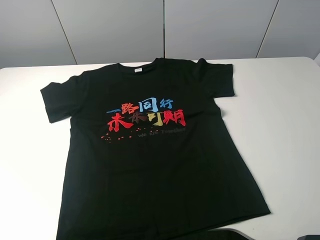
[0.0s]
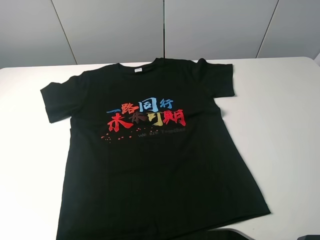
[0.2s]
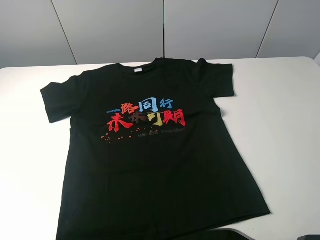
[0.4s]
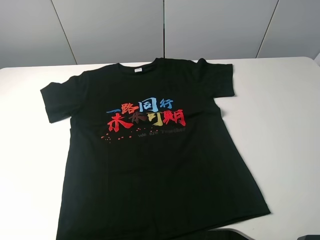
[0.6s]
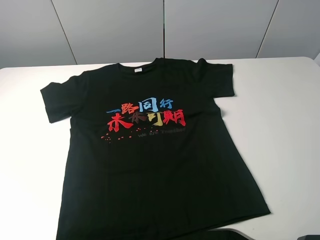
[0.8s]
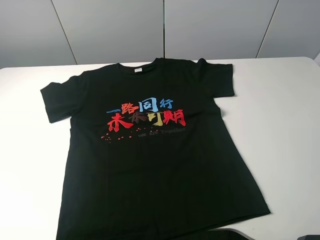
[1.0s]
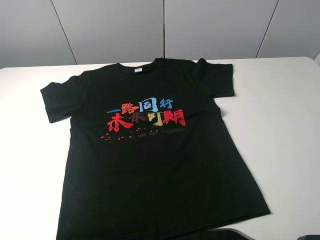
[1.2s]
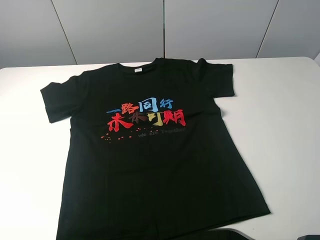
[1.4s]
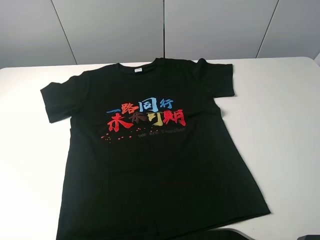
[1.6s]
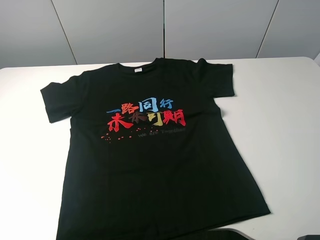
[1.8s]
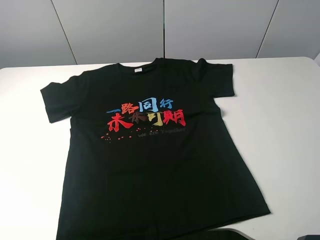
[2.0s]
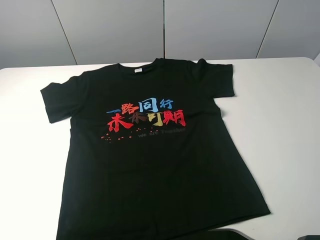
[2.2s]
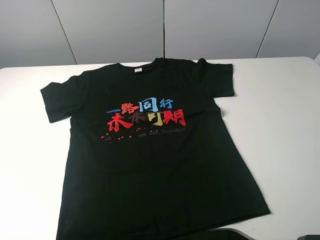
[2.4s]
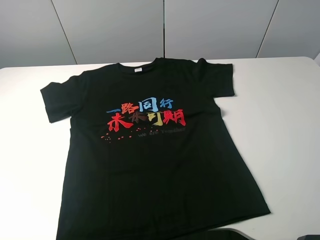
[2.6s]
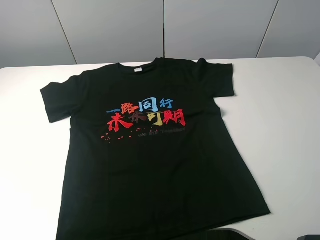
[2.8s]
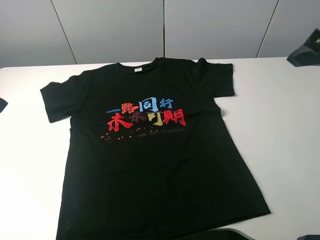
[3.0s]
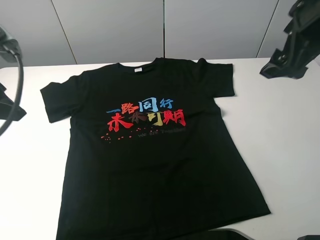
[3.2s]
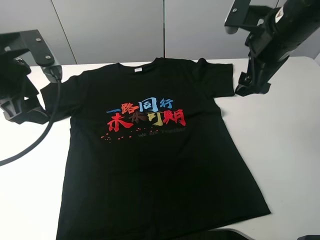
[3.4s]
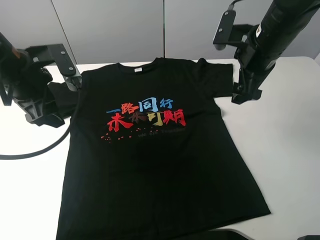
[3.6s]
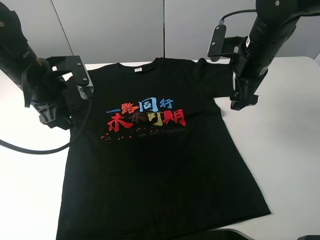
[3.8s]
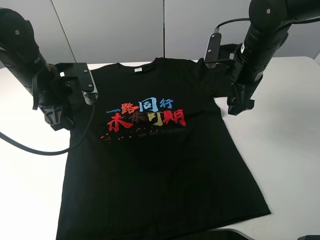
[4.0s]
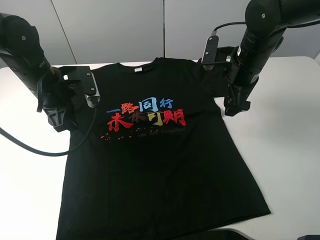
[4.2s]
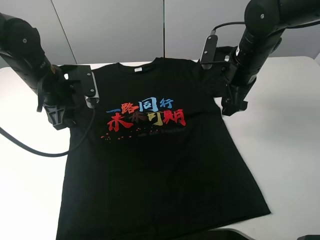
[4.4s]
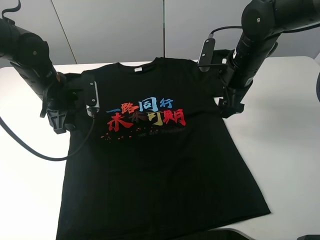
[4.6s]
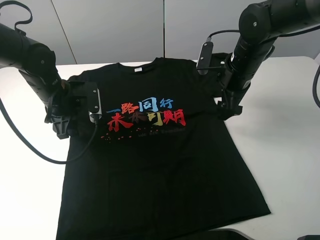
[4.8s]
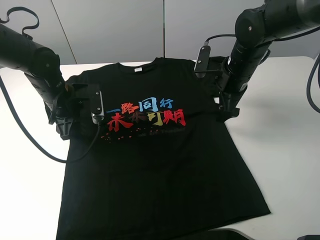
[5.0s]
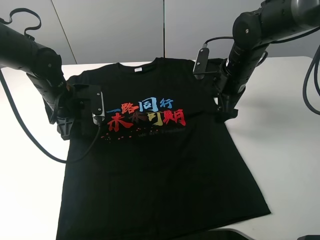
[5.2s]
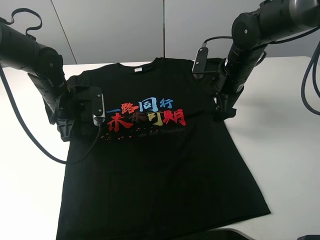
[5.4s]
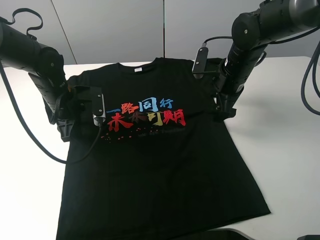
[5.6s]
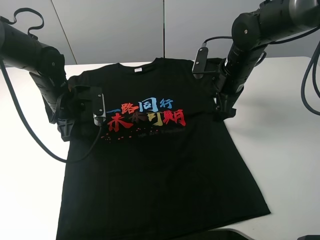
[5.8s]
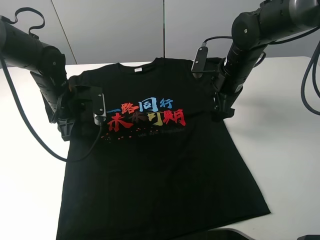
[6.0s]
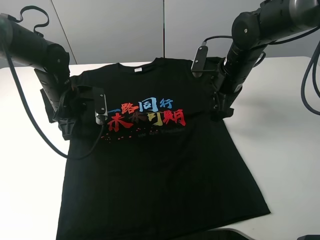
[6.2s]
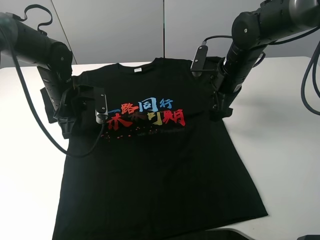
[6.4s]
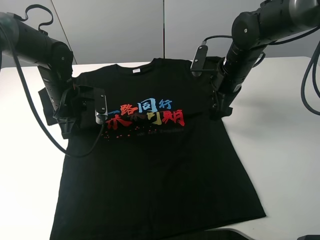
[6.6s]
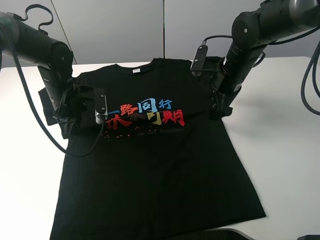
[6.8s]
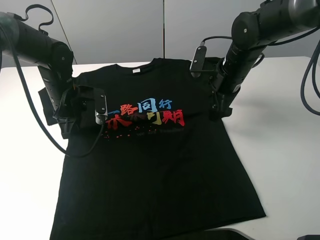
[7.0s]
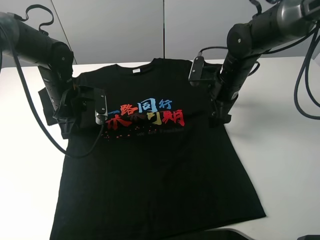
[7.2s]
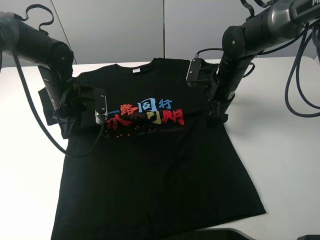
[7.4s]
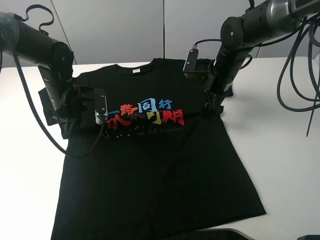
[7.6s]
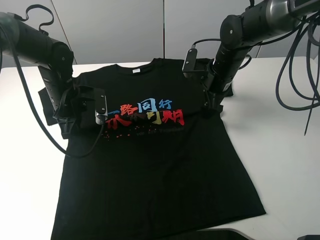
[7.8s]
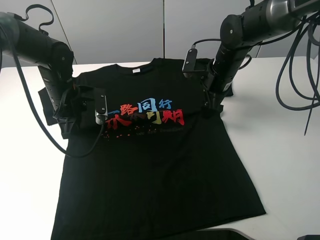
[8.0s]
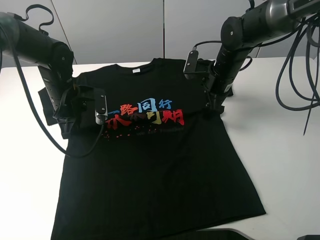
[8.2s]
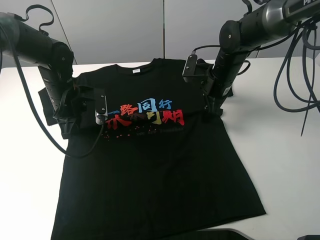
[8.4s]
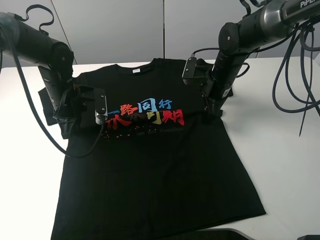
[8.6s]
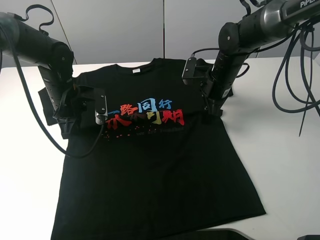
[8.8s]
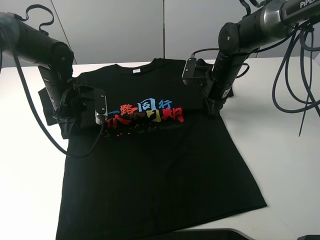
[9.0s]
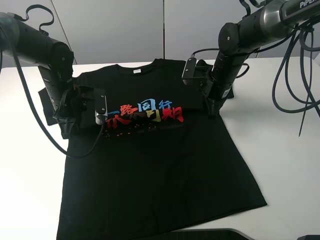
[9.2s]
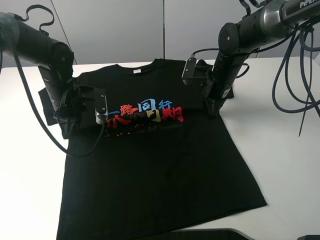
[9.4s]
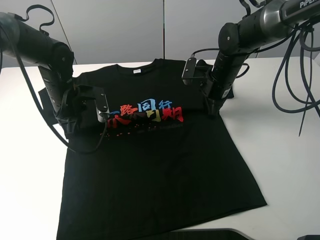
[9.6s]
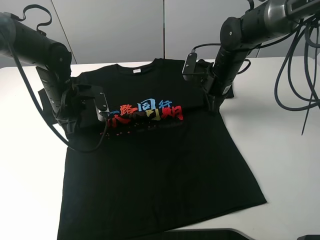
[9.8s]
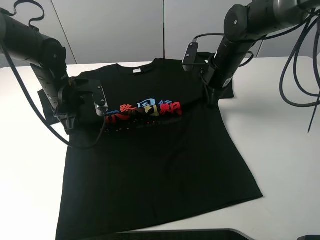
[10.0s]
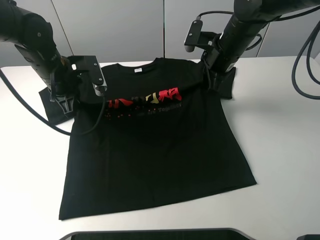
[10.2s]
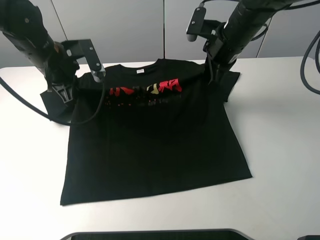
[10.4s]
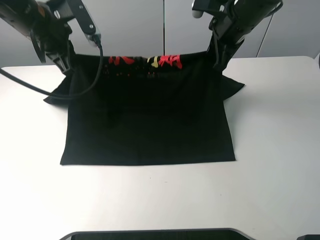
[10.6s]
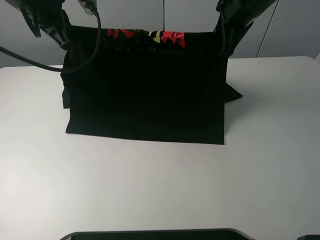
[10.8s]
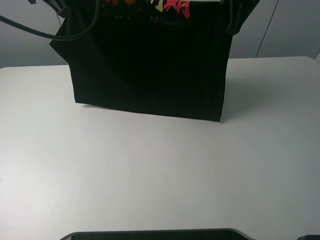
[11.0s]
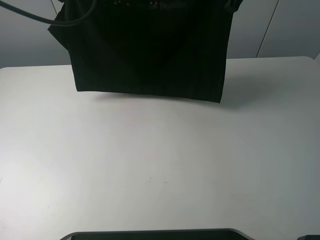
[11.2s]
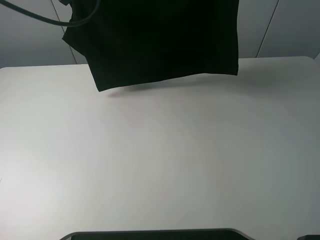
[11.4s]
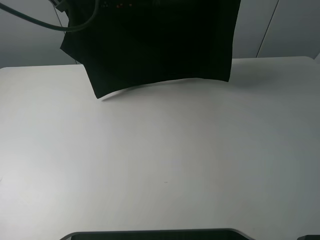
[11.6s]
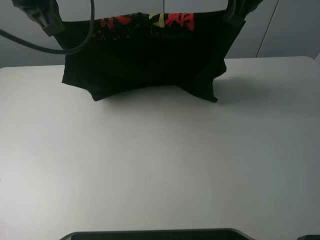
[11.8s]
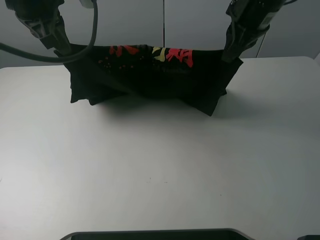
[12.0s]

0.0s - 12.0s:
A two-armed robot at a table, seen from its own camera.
Task of the whole recording: fold the clothes on the table.
Step, 0.0s - 9.2s: Lift the black T-shirt with the left gripper.
0.0s - 1.6s: Both grippers stay put.
1.6s - 3.0s: The right gripper travels forward by about 25 cm.
3.0s - 4.4s: The right gripper goes approximately 20 cm downward, forward and to the left. The left gripper is displaced downward, forward and to the right by approximately 20 cm.
4.4s - 6.0s: The left gripper moves downward, about 5 cm.
6.0s - 7.6s: The left gripper closes its fingers.
7.6s - 9.0s: The right gripper closes.
9.0s - 10.4s: Both grippers move upward, roughly 10 cm.
10.4s - 12.0s: The left gripper shifts some 15 cm upward. The right gripper travels upward by about 10 cm.

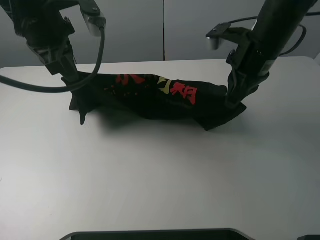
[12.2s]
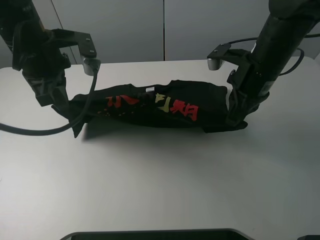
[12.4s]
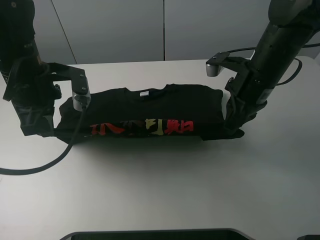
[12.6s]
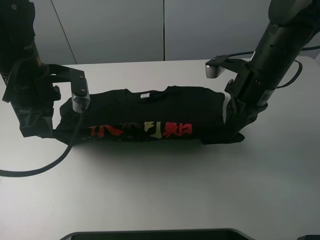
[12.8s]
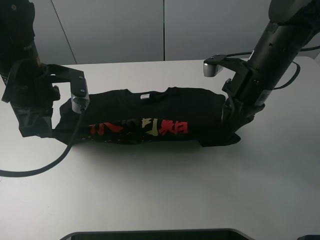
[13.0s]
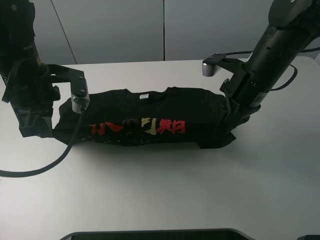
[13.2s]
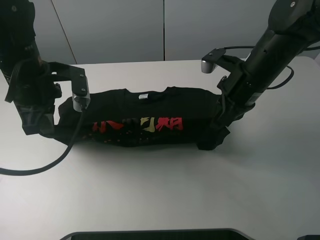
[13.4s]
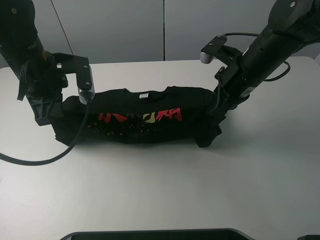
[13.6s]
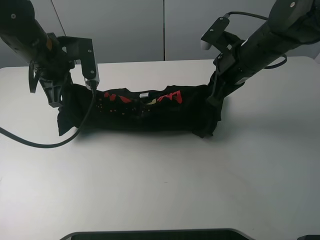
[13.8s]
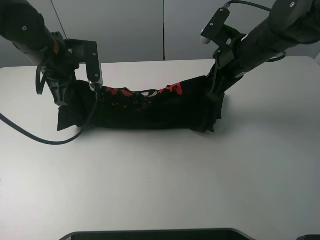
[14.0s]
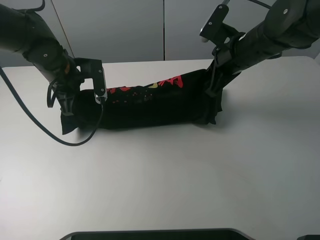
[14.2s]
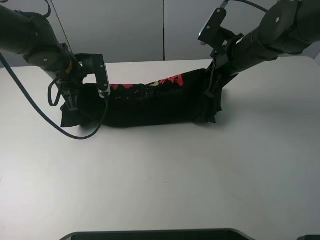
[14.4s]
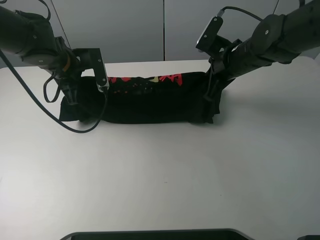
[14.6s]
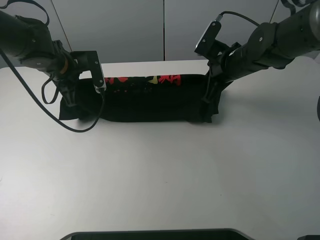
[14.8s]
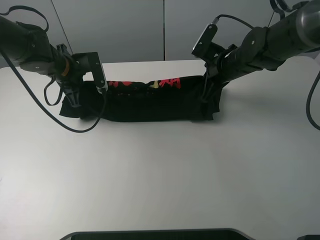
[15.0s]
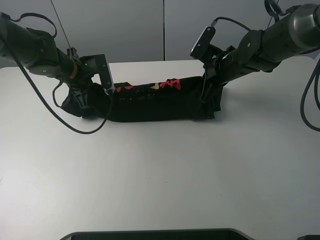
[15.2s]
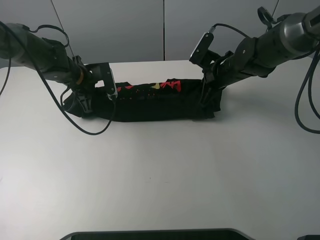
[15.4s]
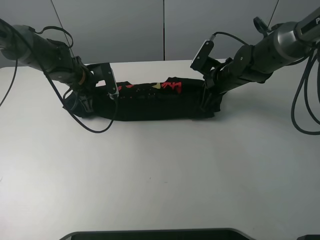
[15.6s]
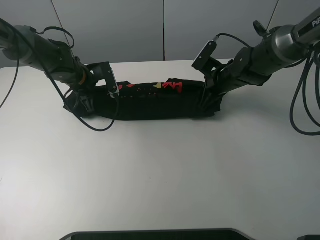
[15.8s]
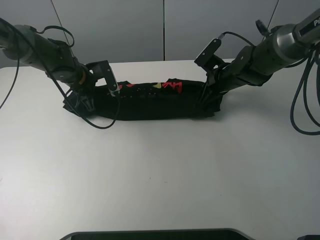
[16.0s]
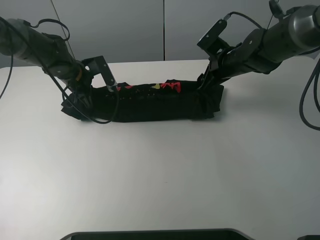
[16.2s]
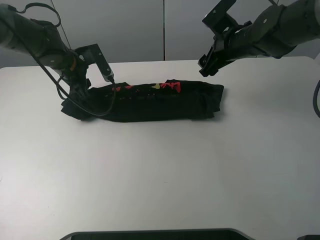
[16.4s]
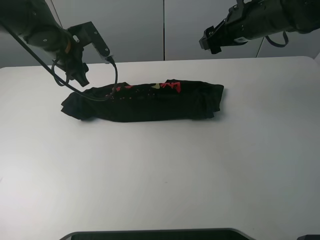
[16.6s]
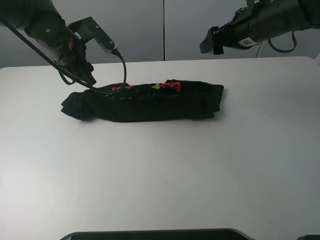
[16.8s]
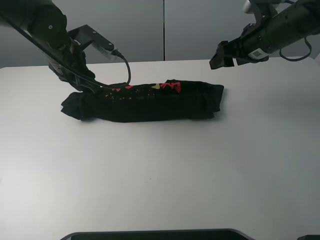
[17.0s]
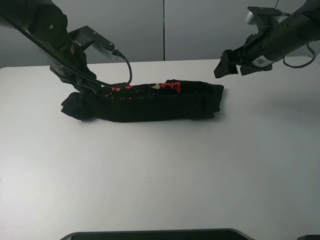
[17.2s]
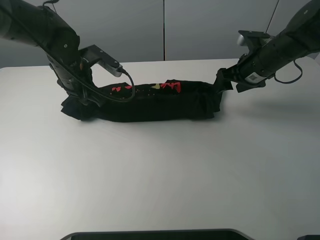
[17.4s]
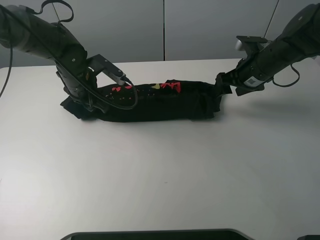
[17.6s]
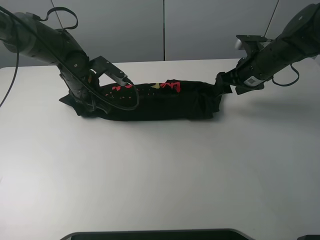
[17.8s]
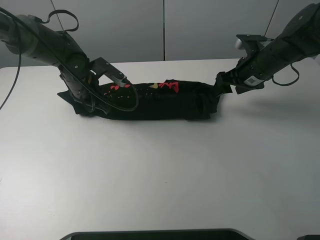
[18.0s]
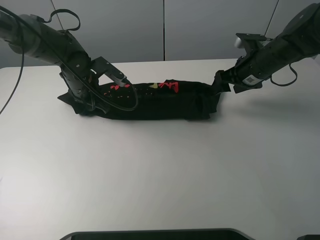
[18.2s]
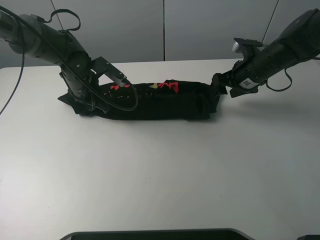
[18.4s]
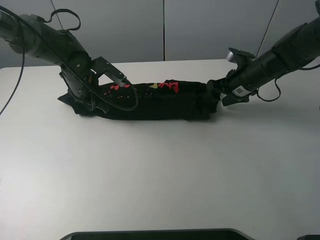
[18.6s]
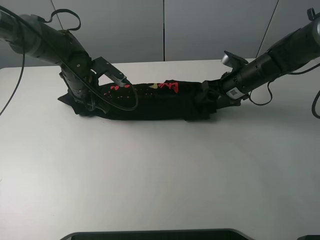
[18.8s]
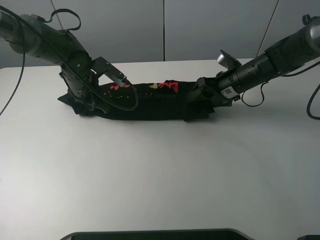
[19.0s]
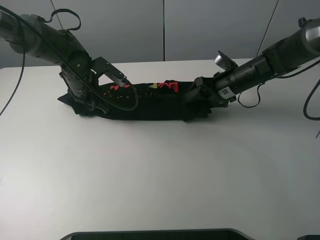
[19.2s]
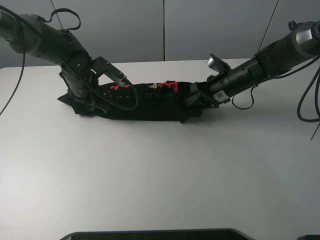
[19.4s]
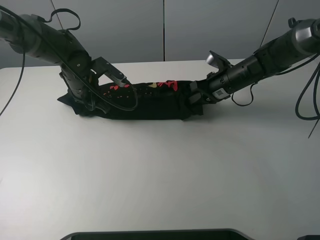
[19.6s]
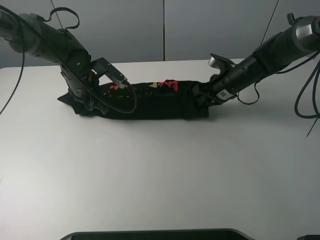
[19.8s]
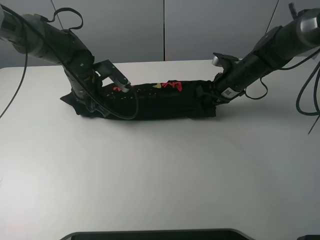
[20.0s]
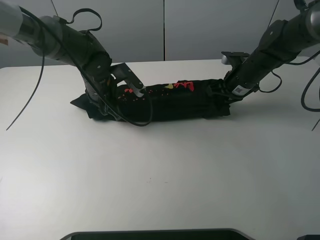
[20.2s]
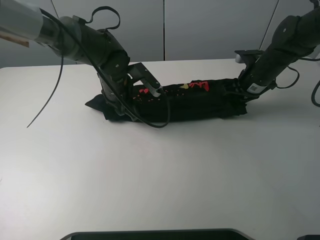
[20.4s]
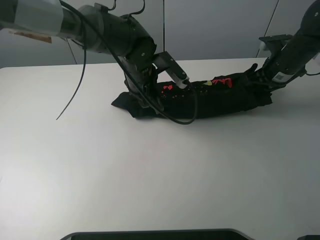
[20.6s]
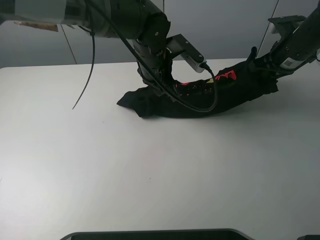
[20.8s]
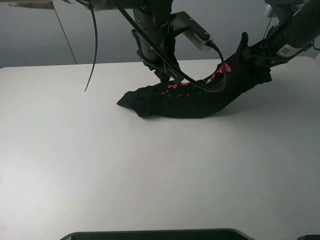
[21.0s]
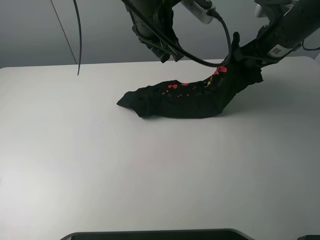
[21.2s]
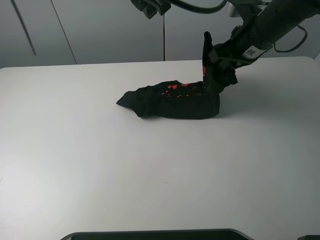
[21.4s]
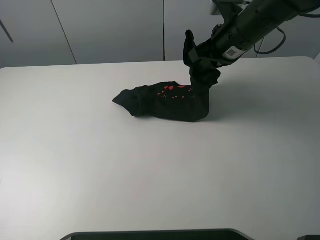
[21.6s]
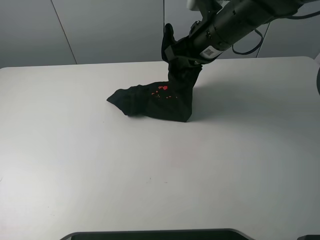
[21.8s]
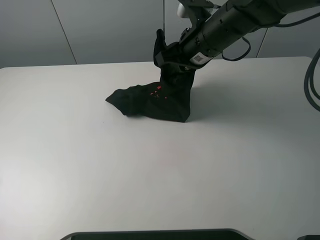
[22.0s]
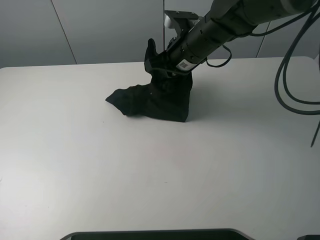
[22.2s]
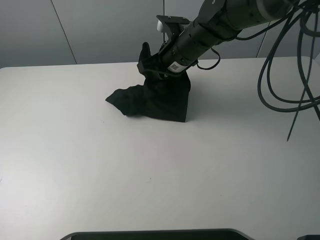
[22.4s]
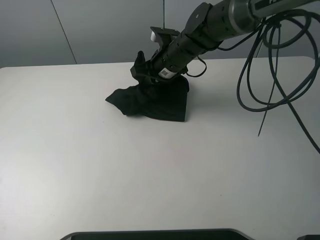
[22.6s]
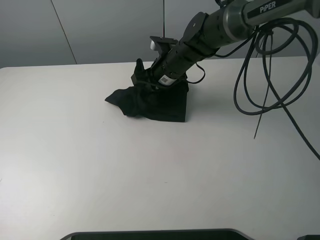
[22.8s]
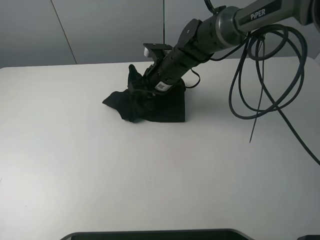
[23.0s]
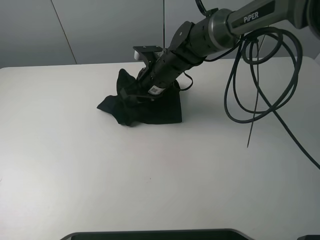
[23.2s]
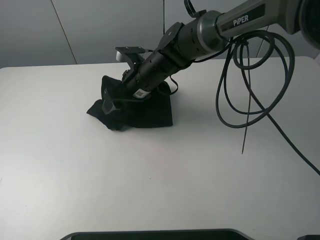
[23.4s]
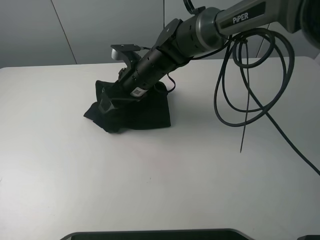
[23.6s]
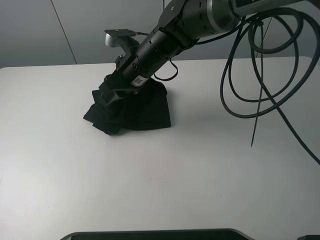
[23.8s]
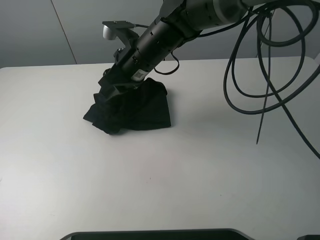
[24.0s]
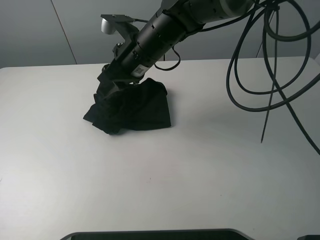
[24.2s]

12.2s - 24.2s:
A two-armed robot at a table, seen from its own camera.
Task of the whole recording: fold the clothes on the table.
Step, 12.2s - 16.2s: Fold the black T-shirt downward with the left gripper.
Step, 16.4s - 19.6s: Grasp the black T-shirt with the right gripper.
12.2s - 13.8s: The left gripper moves downward, some 5 cm.
13.8s - 15.2s: The grippers both shift downward and forward by roughly 10 cm.
15.2s - 16.6s: The right gripper moves upward, about 10 cm, and opens, while the left gripper heads upward, covering roughly 5 cm, and opens its fingers.
16.6s - 18.2s: The two grippers go approximately 10 cm downward.
18.2s - 19.8s: The right gripper heads downward, covering roughly 5 cm, and closes up.
19.8s - 21.2s: The left gripper heads upward and to the right, covering some 25 cm. The right gripper travels upward by approximately 15 cm.
21.2s - 22.6s: The right gripper is displaced to the left and downward by some 20 cm, while the left gripper is displaced upward and to the left by some 20 cm.
22.6s - 24.2s: The right gripper moves upward, backward and to the left, some 10 cm.
